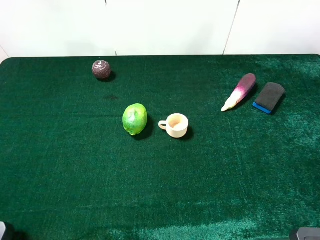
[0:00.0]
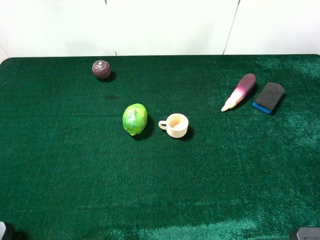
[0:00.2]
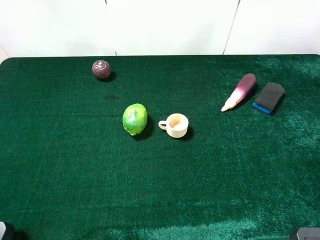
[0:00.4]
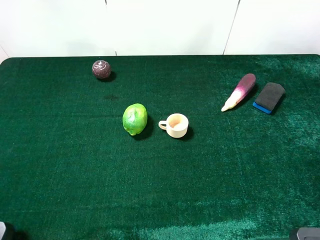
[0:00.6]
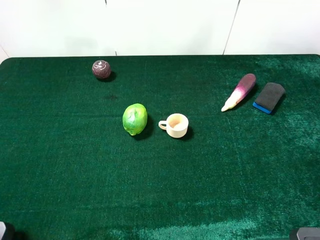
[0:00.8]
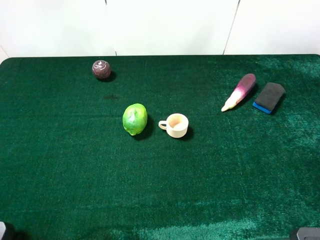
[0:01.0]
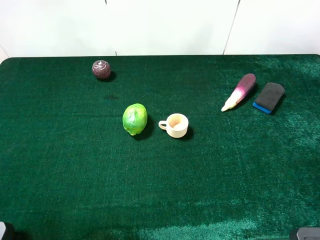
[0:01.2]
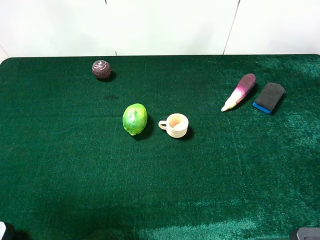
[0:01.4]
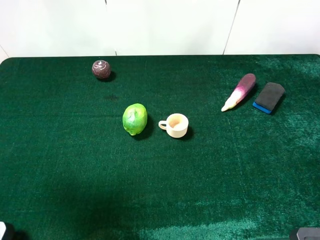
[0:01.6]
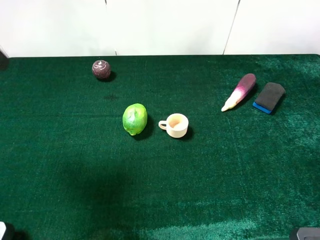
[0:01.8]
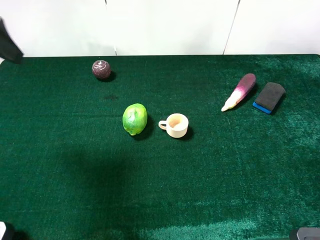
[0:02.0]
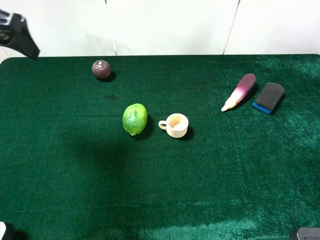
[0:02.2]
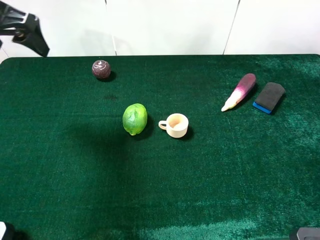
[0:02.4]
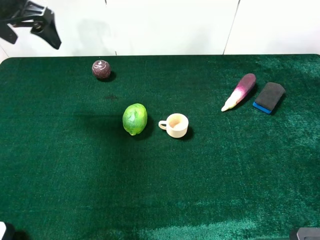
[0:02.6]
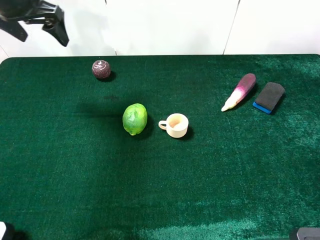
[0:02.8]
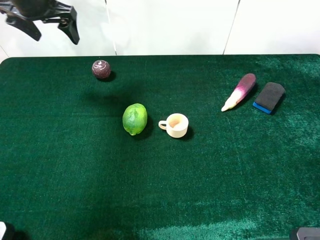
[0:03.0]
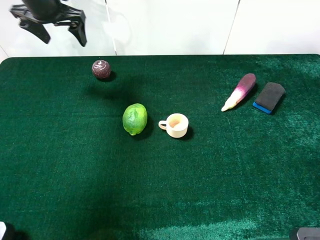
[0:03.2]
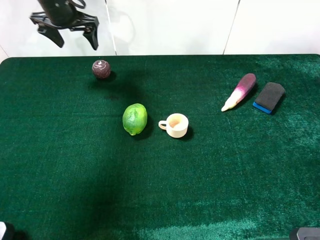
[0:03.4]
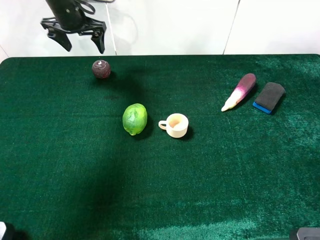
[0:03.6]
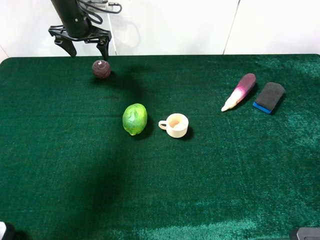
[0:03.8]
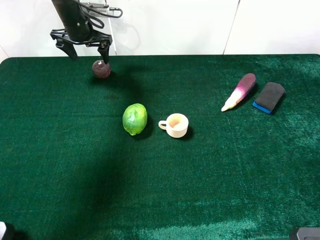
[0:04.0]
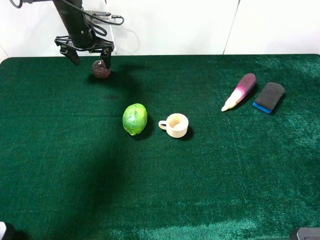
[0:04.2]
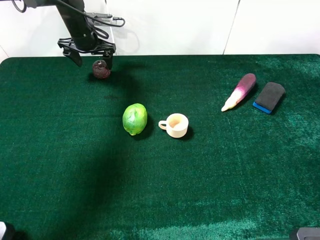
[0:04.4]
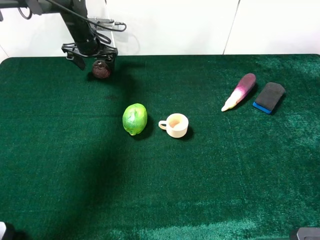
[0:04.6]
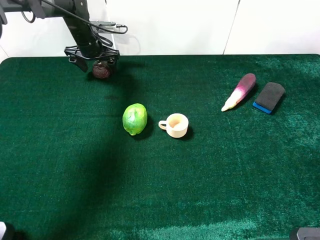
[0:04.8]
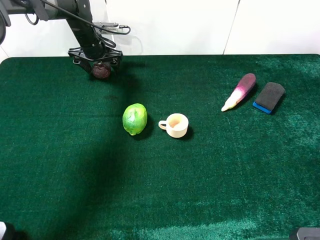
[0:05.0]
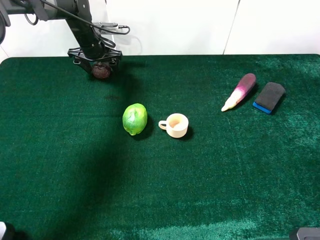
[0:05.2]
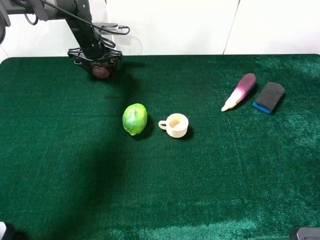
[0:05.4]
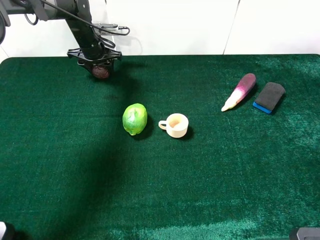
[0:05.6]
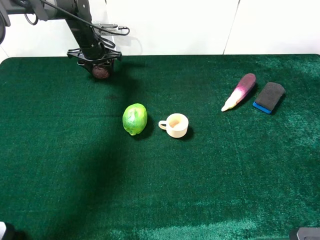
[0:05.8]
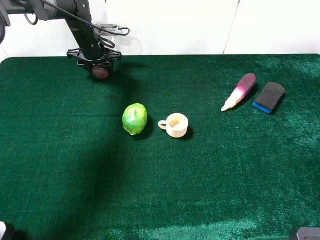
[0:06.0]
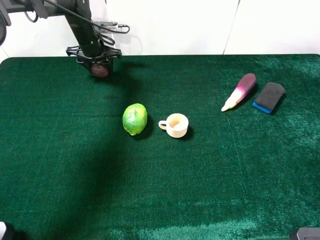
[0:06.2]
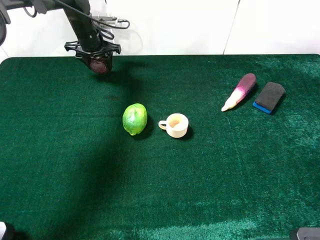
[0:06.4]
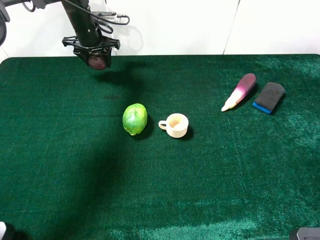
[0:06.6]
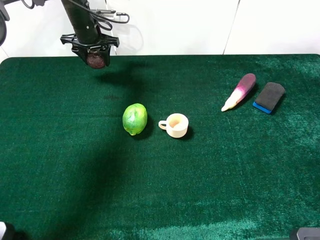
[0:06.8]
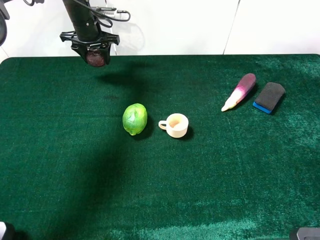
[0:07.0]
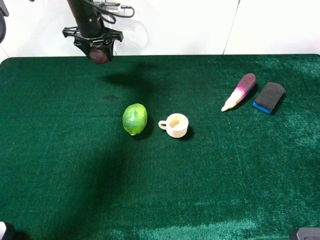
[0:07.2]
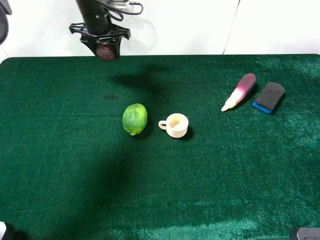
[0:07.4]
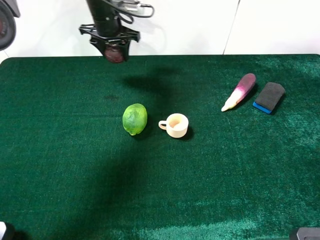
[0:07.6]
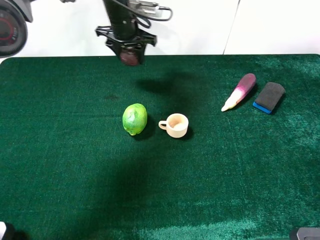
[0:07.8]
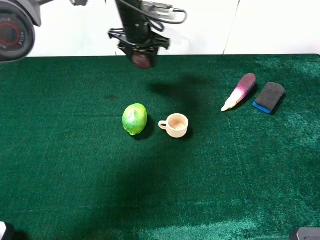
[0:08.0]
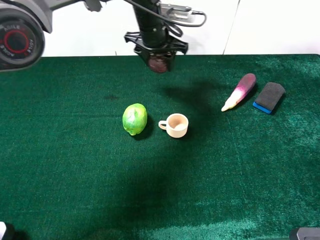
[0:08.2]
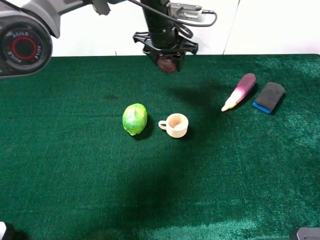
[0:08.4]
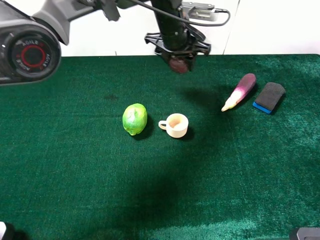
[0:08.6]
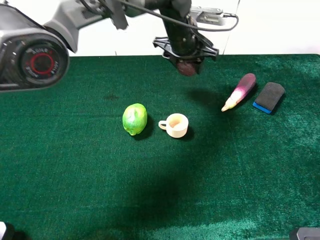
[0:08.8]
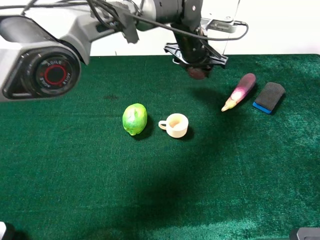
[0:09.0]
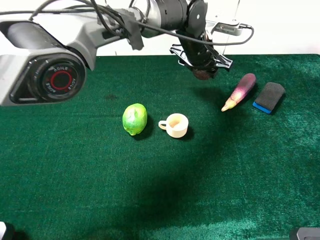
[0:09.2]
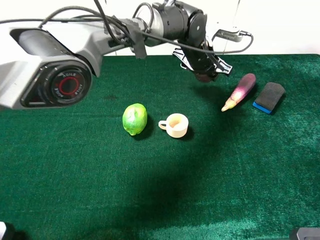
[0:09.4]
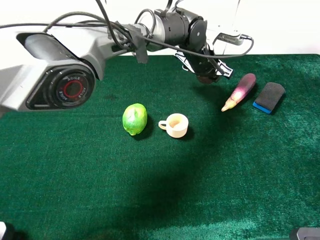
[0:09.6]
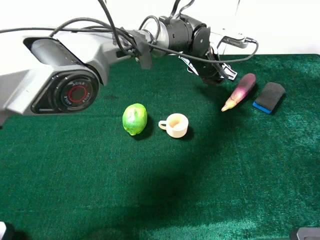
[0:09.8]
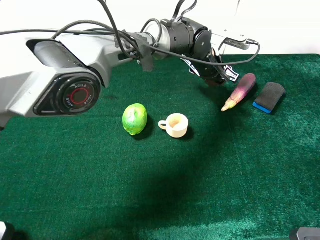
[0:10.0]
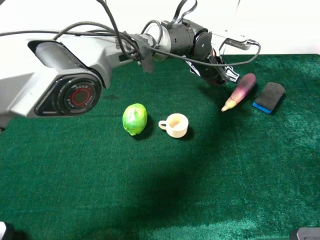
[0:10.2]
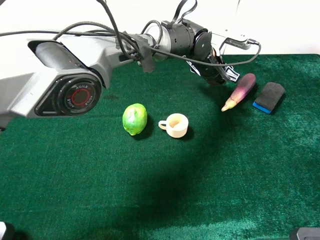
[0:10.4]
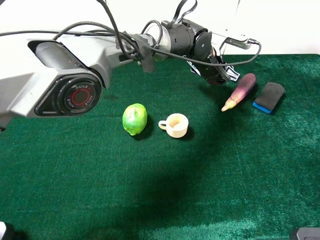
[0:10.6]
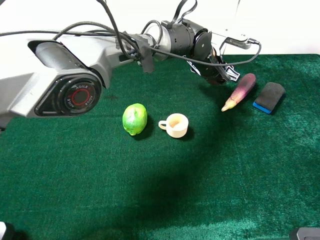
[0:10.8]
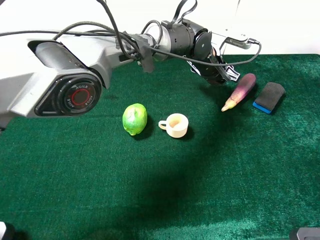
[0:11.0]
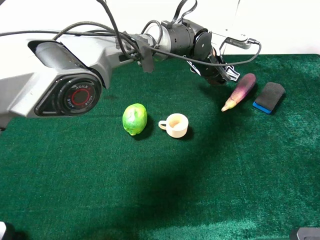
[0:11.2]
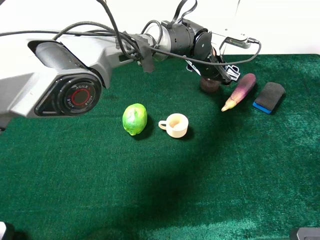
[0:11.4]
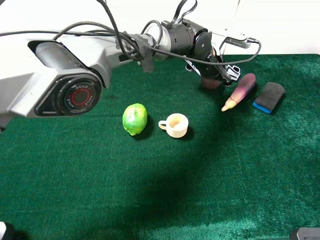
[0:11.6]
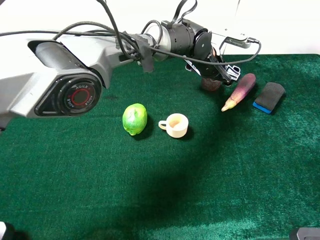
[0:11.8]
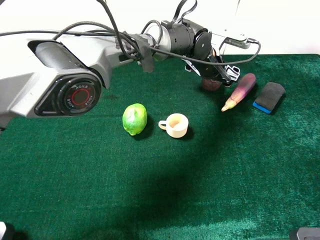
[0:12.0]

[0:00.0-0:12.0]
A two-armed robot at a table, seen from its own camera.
Task of the whole recording: the gripper move the object.
Step, 0:00.0 to 0:05.6: Grasp the mangosteen with the left gripper.
0:00.0 to 0:01.6: The left gripper heads forward and upward, covering some 15 cm.
0:01.6 to 0:03.0: The left gripper moves forward, approximately 25 cm.
0:03.0 to 0:04.4: The left gripper shifts roughly 15 cm downward and forward.
0:04.4 to 0:06.0: The left gripper closes up.
0:06.0 to 0:07.6: The left gripper is displaced upward and to the right by some 10 cm.
0:07.6 to 0:09.0: The left gripper is displaced to the right by some 20 cm.
0:09.0 to 0:10.4: The left gripper shifts by approximately 5 cm.

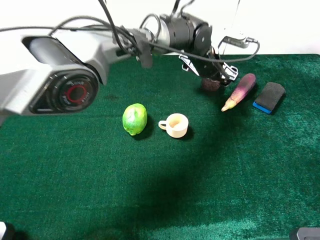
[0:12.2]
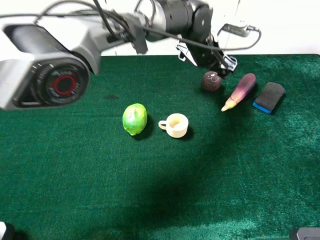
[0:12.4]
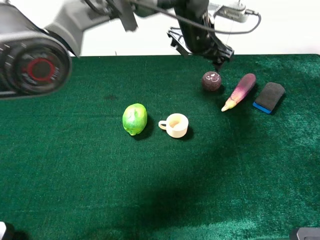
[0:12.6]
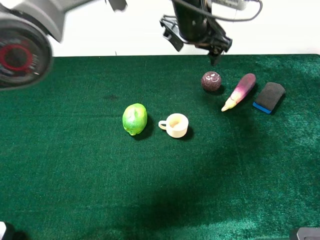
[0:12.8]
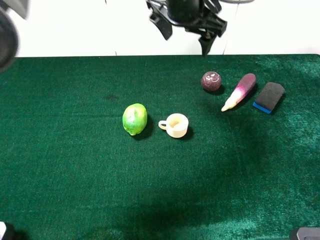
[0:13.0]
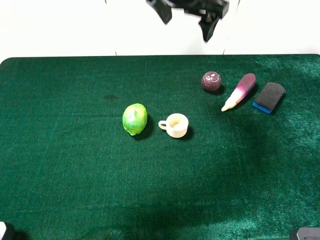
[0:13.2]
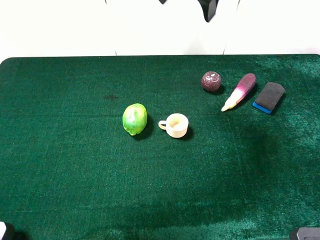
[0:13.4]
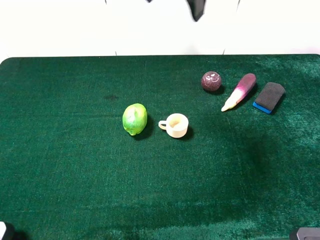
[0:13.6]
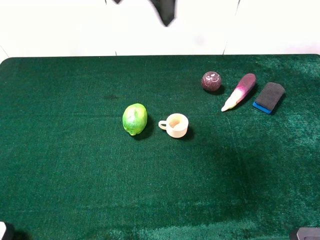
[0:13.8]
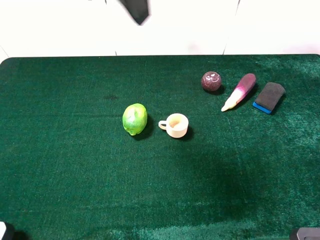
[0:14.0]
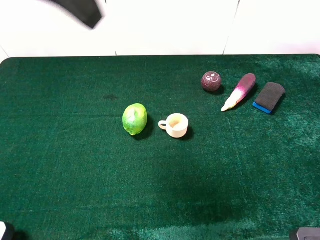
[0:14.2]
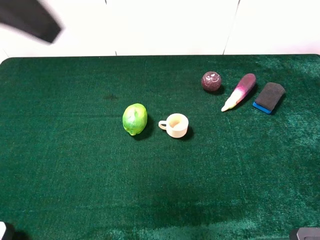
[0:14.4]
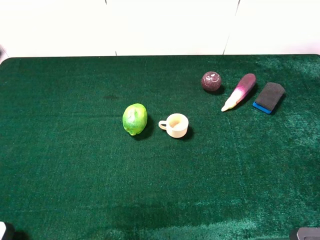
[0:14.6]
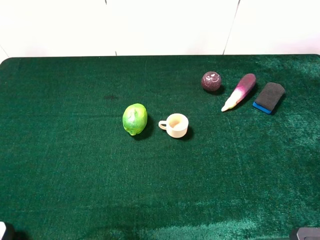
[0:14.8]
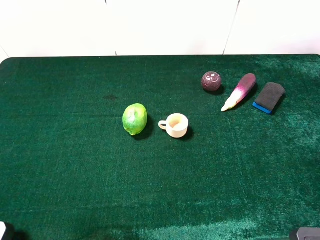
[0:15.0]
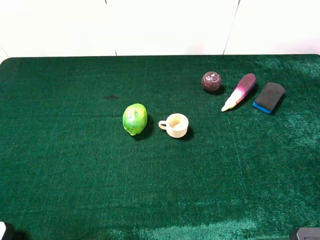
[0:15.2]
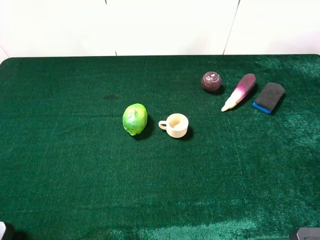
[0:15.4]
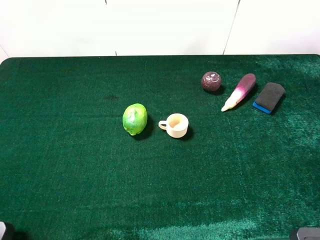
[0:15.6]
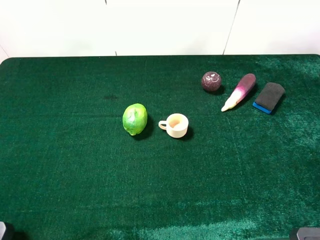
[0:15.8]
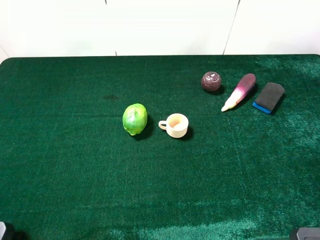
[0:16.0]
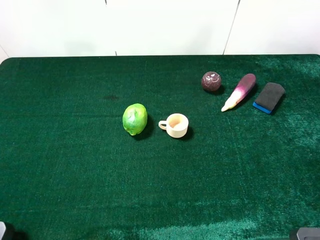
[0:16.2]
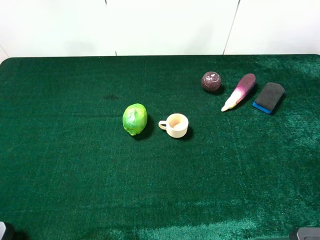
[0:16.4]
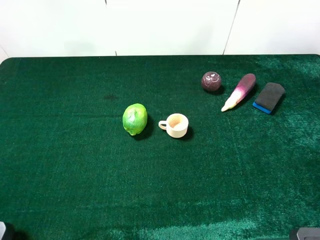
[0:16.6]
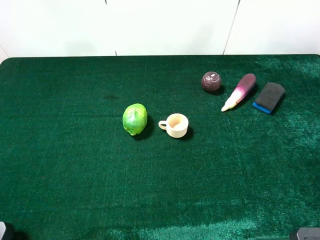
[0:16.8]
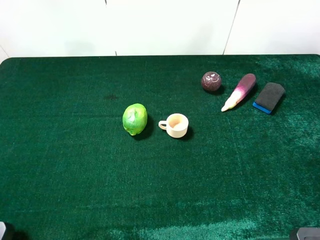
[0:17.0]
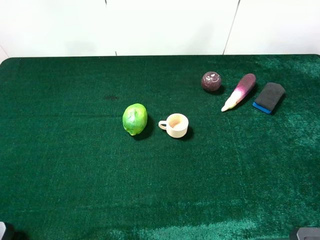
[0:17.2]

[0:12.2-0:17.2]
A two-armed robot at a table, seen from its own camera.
Task of the whole recording: the gripper move the object.
0:12.2 to 0:13.8: The left gripper moves upward, to the left and backward, approximately 35 cm.
0:13.8 to 0:15.6: The left gripper is displaced to the left and backward by some 35 cm.

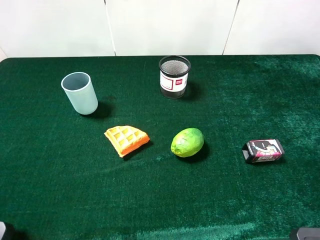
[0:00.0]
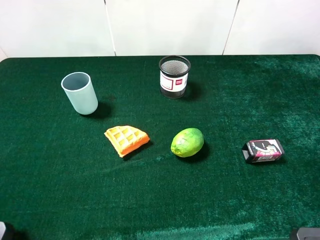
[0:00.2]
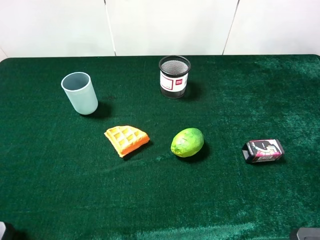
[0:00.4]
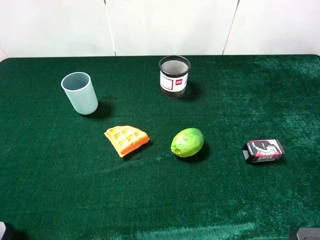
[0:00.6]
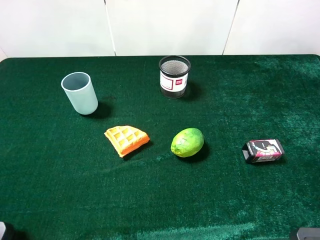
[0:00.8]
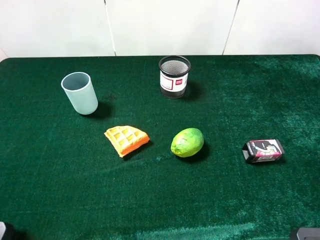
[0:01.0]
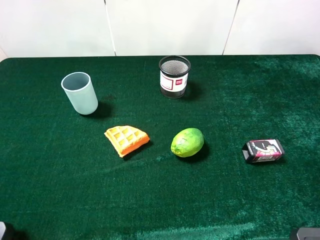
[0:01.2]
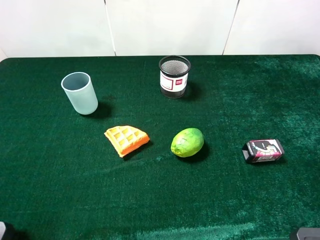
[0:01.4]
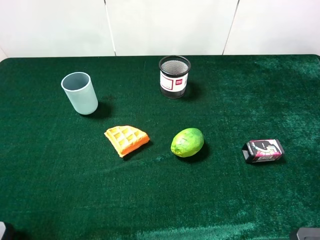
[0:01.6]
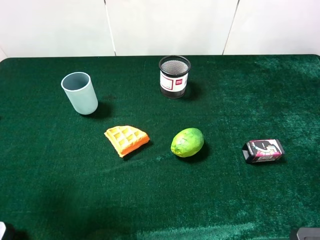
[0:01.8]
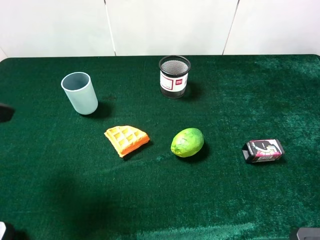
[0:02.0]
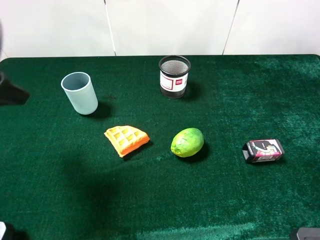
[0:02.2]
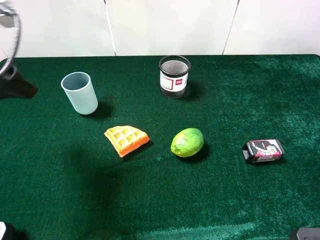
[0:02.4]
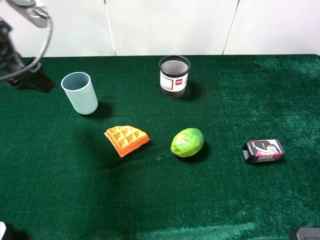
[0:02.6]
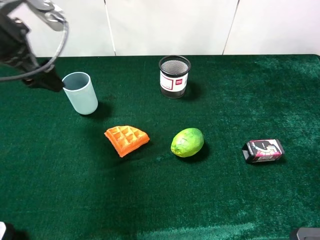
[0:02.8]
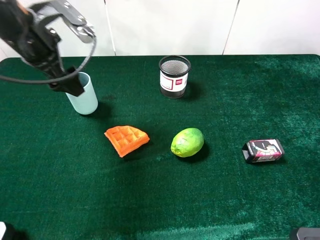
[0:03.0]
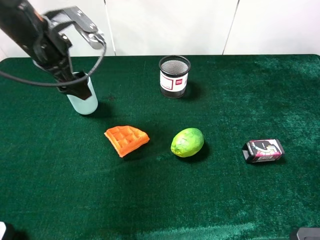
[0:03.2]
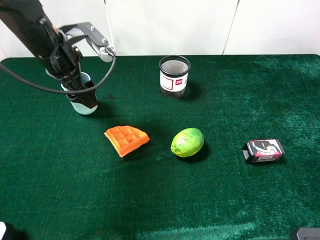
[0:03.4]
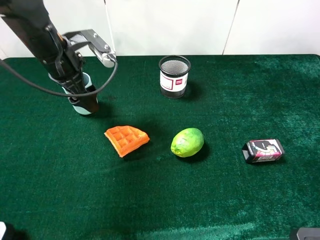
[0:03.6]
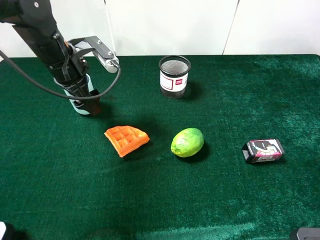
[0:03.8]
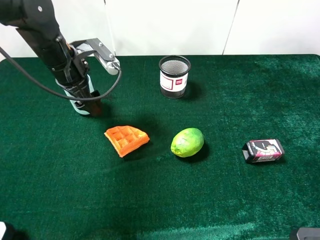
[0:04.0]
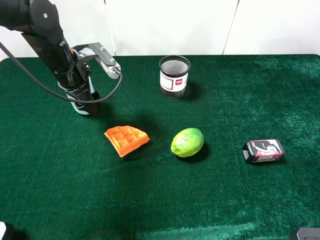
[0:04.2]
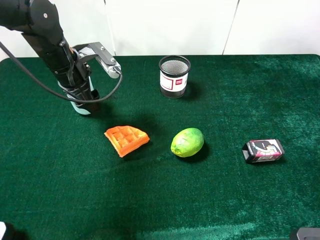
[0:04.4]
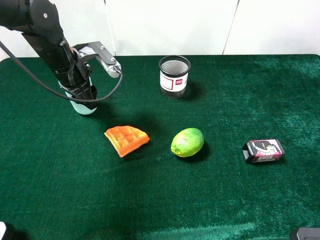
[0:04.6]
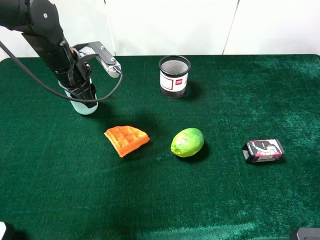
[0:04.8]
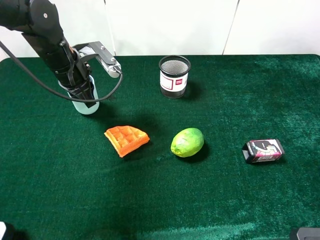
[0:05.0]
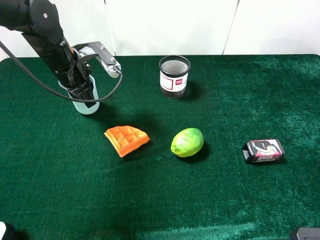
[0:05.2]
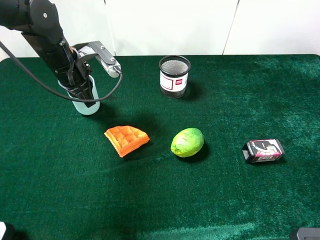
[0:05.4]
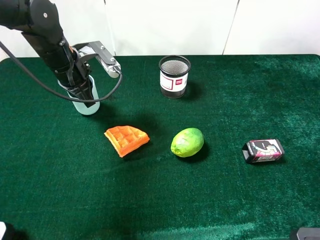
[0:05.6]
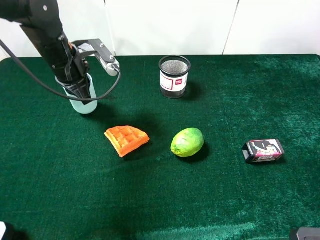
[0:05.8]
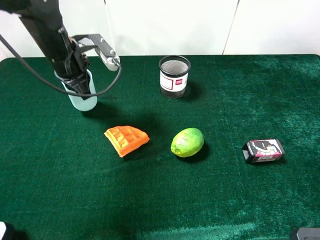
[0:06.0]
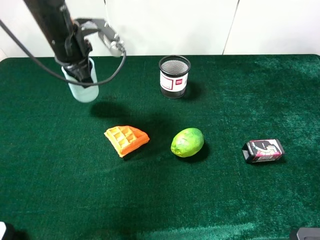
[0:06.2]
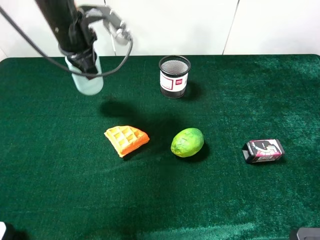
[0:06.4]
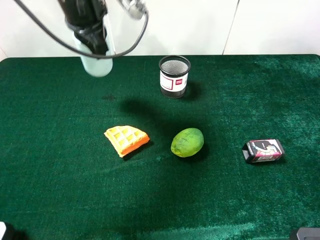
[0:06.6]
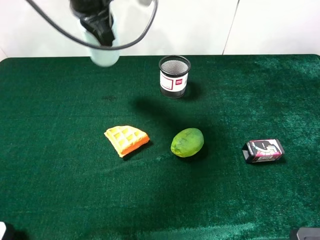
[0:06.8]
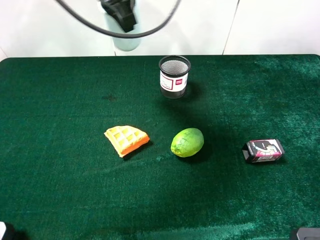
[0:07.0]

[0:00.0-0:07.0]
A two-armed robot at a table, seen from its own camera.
Task of the whole recording: the gripper move the object.
Step, 0:00.0 to 0:05.4: Grasp the cyan cup with the left gripper.
0:01.4 to 0:02.8: The left gripper moves forward, approximately 25 cm.
0:02.8 to 0:04.2: The left gripper is displaced downward and forward by approximately 10 cm.
0:04.2 to 0:05.6: The left gripper closes up.
0:05.6 to 0:07.0: The left gripper moves upward and to the right, roughly 20 cm.
